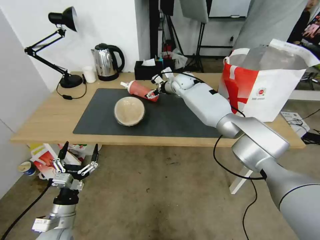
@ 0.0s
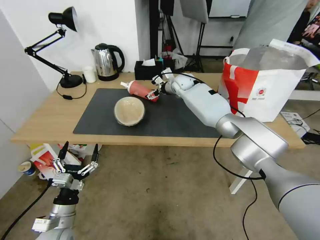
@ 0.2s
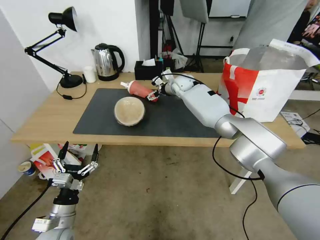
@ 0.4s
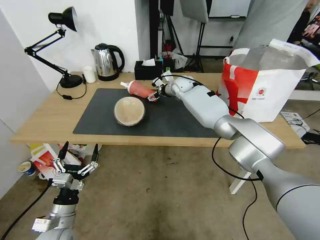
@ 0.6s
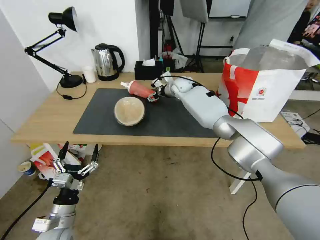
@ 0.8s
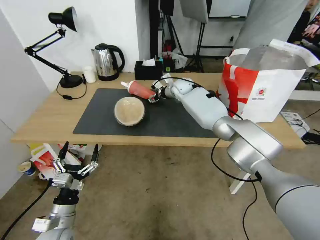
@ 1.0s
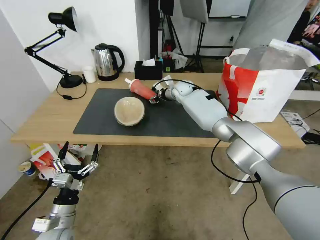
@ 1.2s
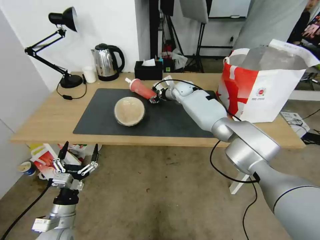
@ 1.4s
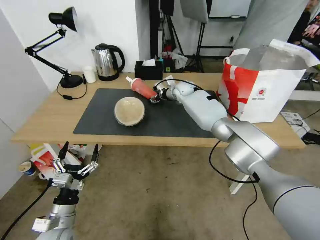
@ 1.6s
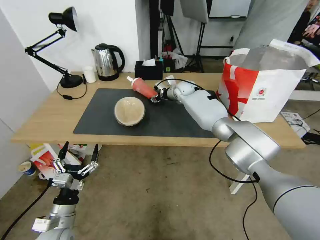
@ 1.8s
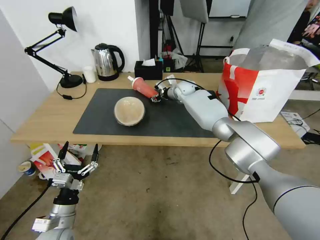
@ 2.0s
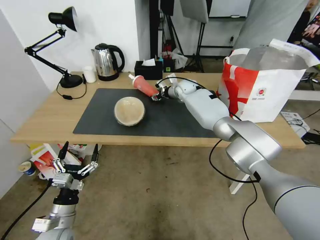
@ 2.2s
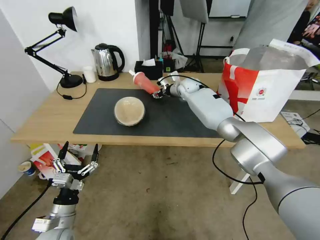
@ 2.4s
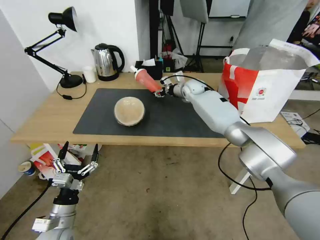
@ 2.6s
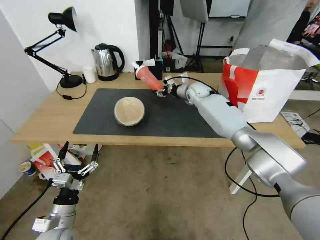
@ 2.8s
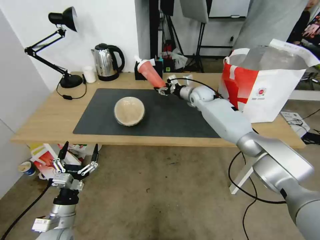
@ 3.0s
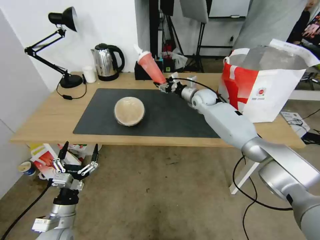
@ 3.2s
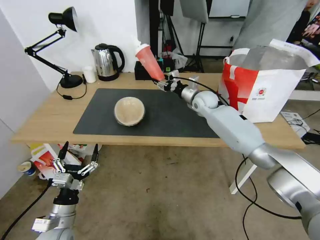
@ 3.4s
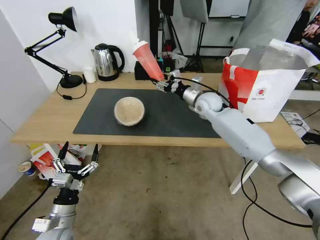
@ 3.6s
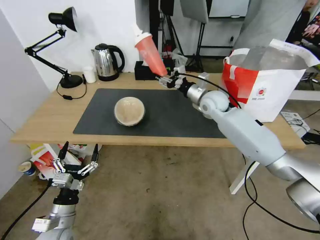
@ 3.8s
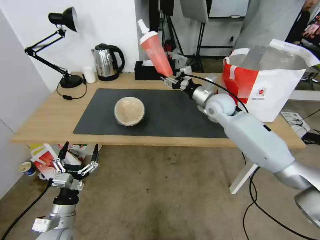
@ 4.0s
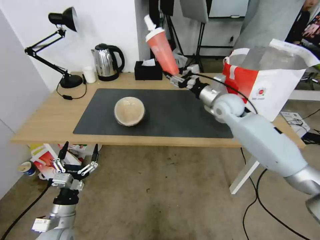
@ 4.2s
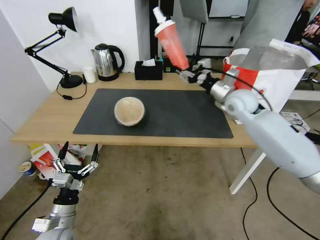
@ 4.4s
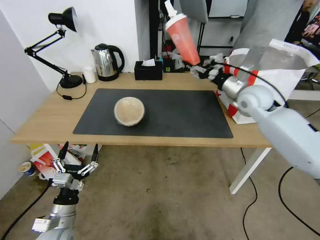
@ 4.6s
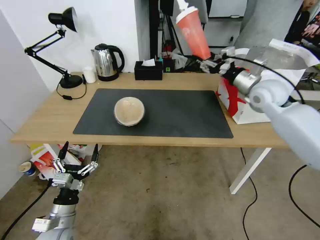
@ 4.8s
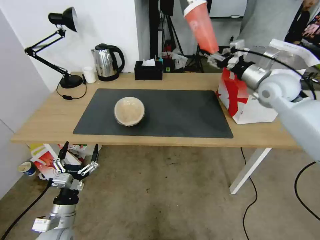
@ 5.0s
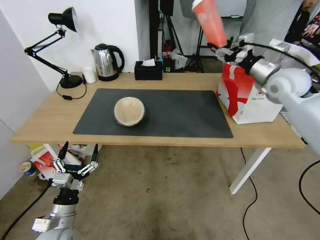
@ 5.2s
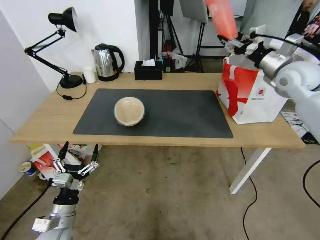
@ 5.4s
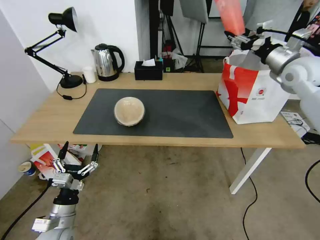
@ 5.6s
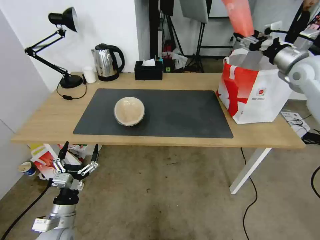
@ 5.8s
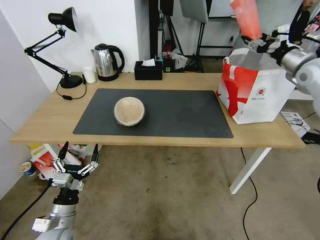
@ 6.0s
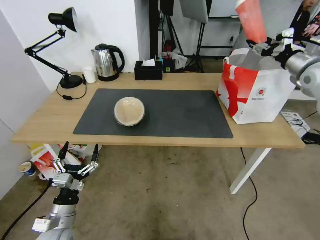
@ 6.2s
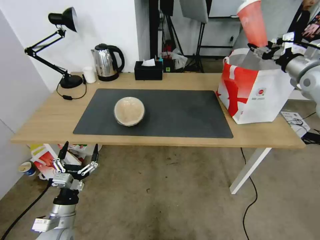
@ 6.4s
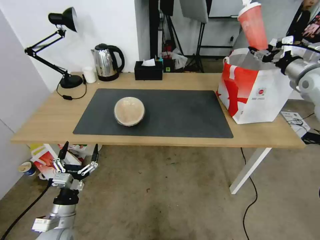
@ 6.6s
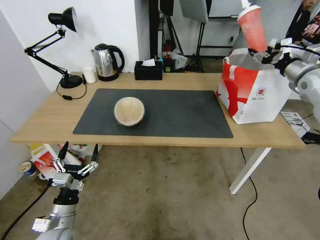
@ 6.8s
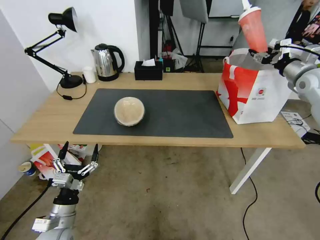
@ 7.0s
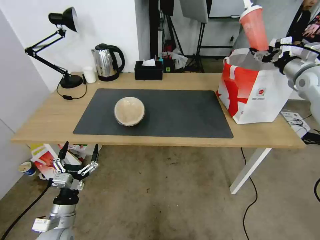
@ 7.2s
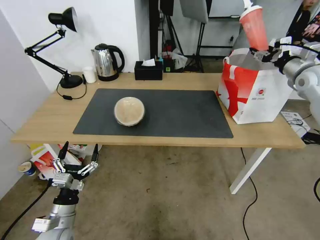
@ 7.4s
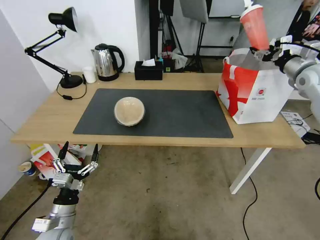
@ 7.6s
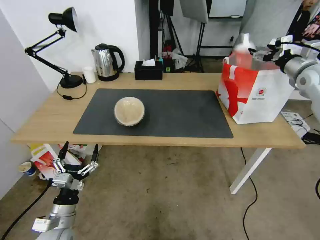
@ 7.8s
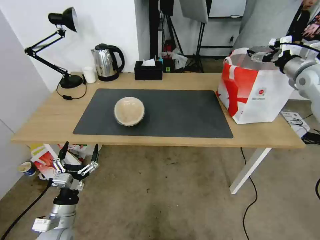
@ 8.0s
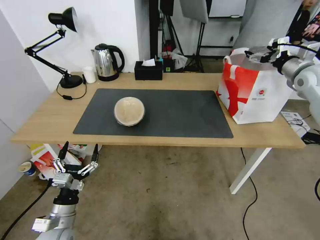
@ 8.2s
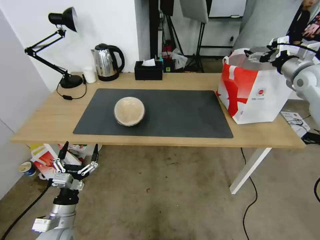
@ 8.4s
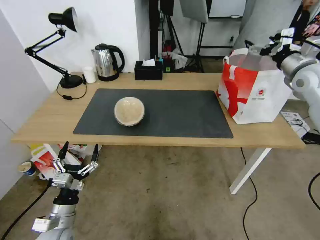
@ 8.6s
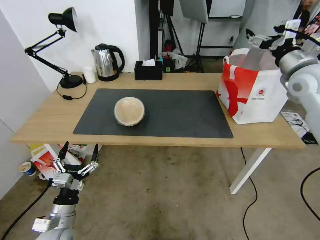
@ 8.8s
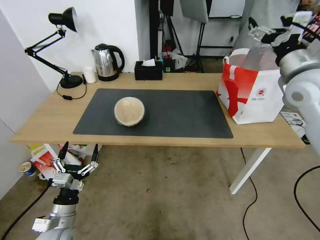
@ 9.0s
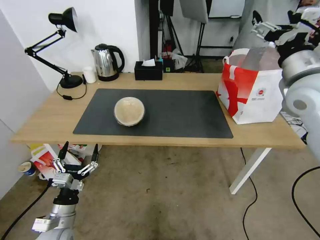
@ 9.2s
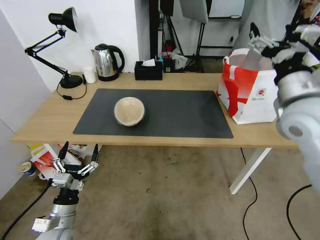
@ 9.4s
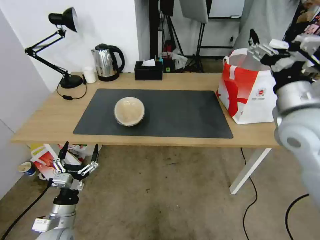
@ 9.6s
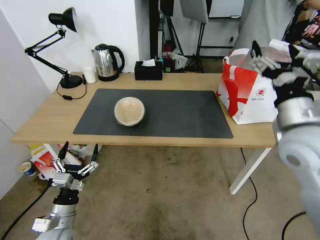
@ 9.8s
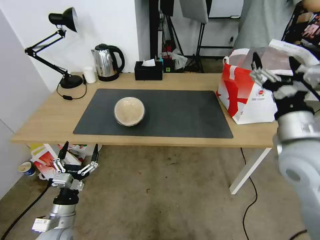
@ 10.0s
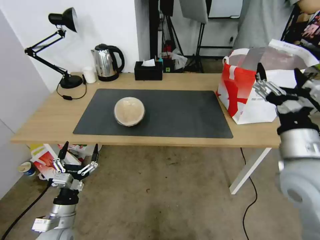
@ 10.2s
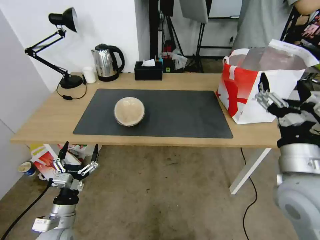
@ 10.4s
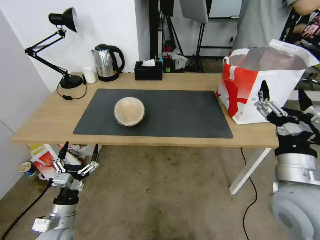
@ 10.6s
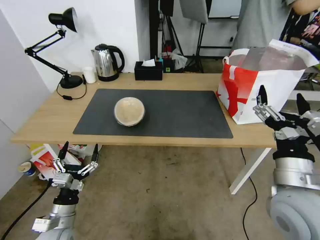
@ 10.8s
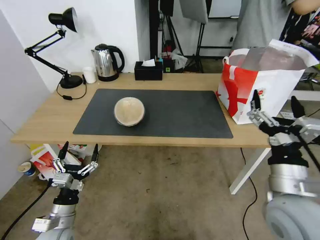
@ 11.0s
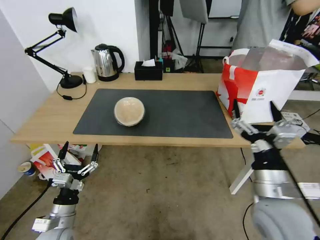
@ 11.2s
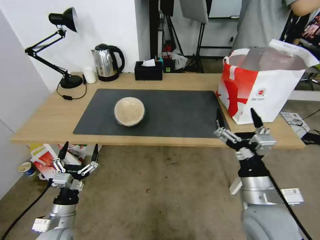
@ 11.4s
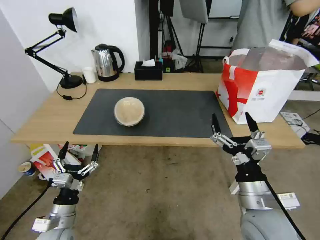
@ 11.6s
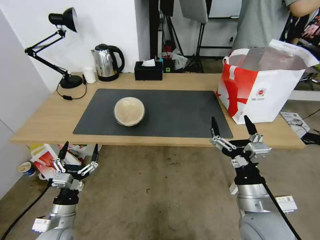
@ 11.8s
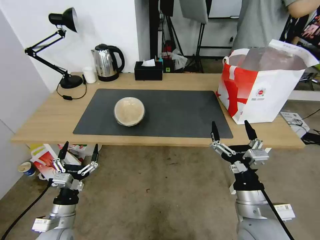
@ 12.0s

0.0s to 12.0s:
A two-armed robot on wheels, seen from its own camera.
Task of the whole recording: Pick up the trash from the table and place it into the takeout bag.
0.0s to 1.6s: The right gripper closes.
1.6s to 3.0s: The right gripper goes about 5 cm to the right.
3.0s to 4.4s: The right gripper goes some 20 cm backward, to the right and upward.
4.4s to 6.0s: The right gripper travels to the right and upward by approximately 20 cm.
6.0s to 7.6s: The grippers make only small movements.
7.6s to 9.0s: The right gripper heads to the left and backward, covering approximately 20 cm, and opens its fingers.
9.0s to 10.4s: The right gripper travels backward and downward by about 25 cm.
10.4s to 12.0s: The right gripper moves downward and to the left, about 15 cm.

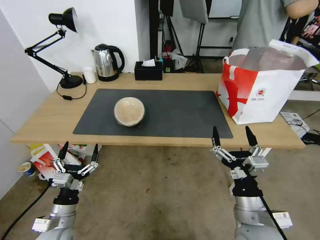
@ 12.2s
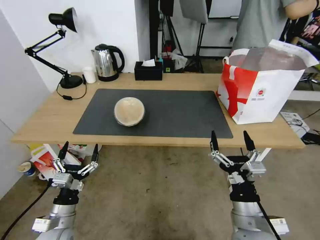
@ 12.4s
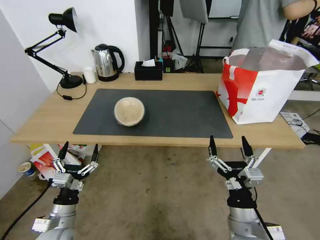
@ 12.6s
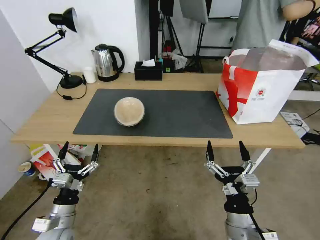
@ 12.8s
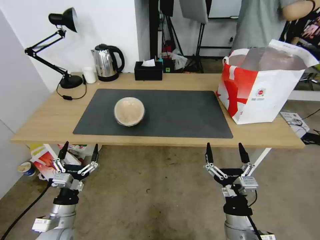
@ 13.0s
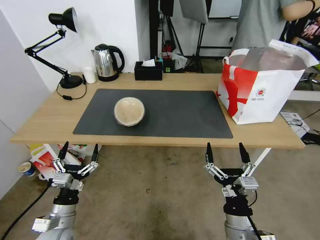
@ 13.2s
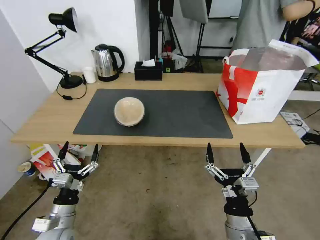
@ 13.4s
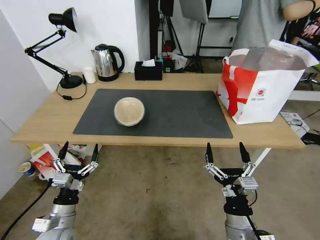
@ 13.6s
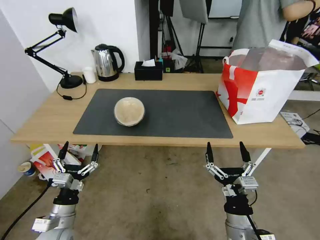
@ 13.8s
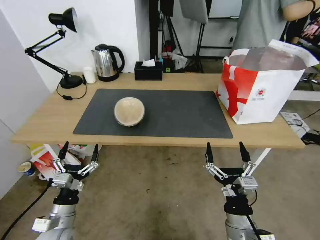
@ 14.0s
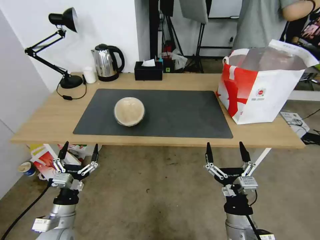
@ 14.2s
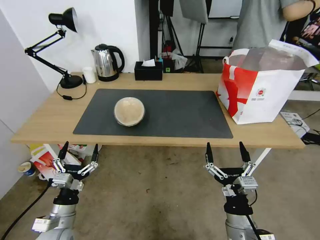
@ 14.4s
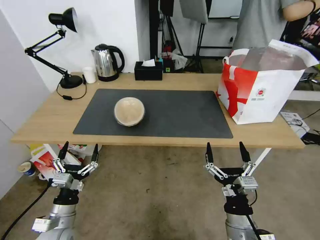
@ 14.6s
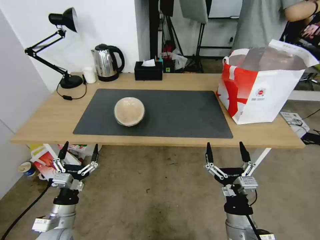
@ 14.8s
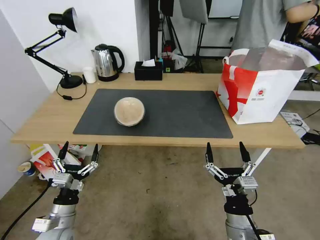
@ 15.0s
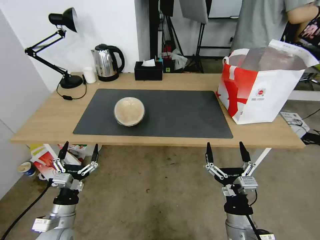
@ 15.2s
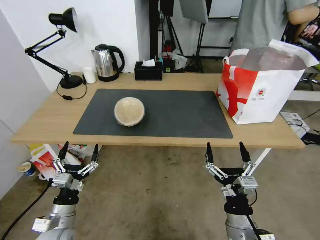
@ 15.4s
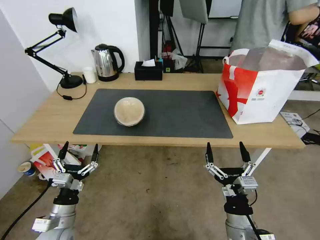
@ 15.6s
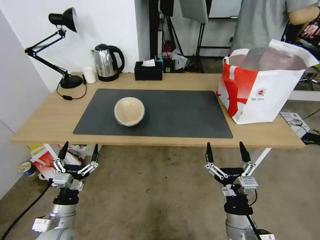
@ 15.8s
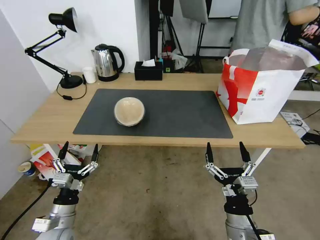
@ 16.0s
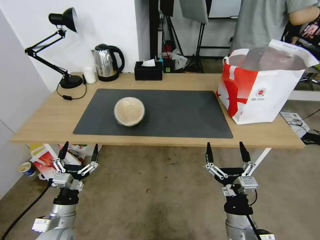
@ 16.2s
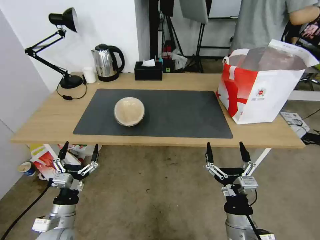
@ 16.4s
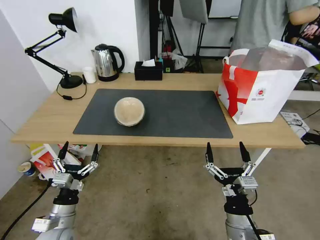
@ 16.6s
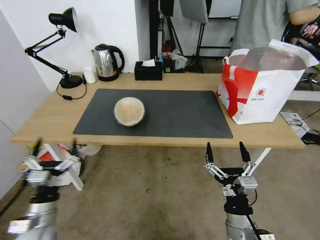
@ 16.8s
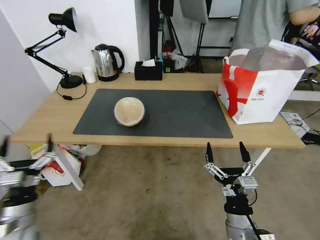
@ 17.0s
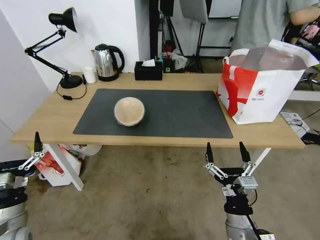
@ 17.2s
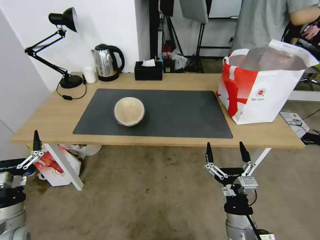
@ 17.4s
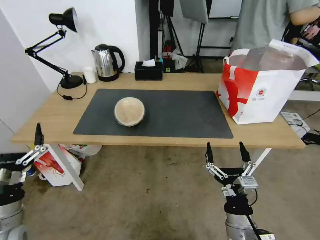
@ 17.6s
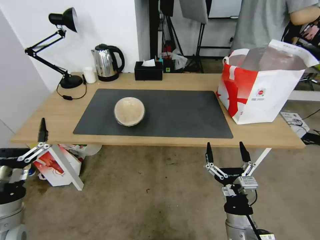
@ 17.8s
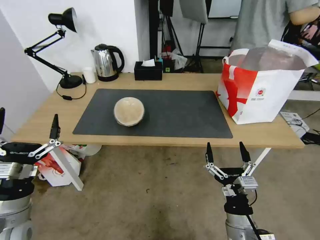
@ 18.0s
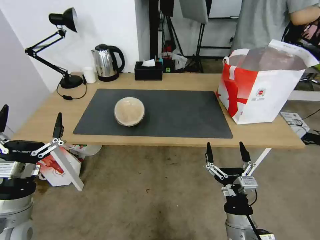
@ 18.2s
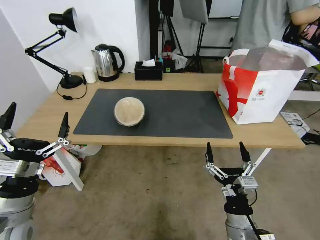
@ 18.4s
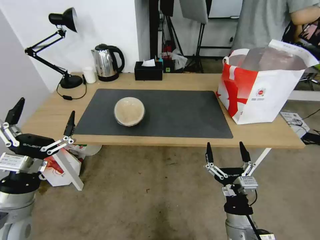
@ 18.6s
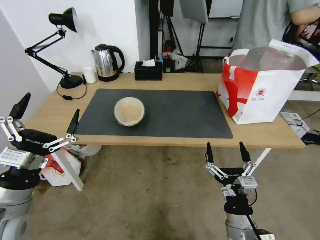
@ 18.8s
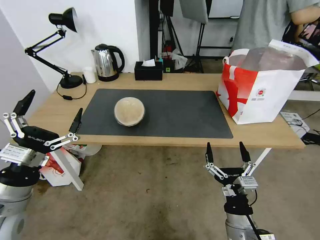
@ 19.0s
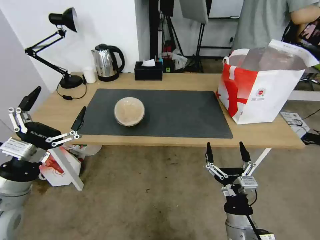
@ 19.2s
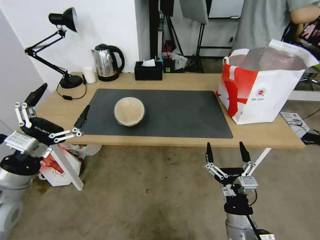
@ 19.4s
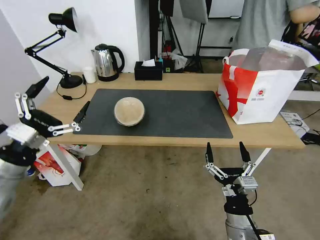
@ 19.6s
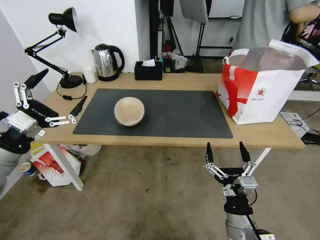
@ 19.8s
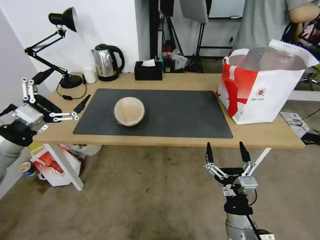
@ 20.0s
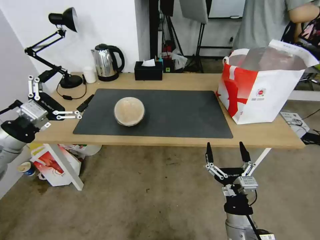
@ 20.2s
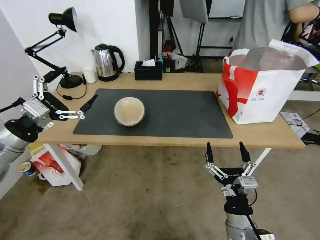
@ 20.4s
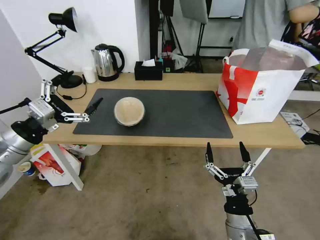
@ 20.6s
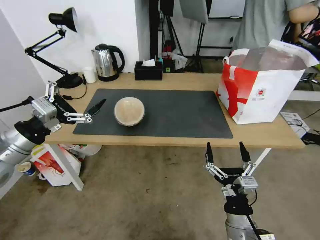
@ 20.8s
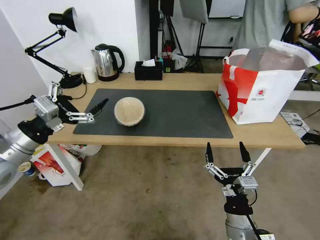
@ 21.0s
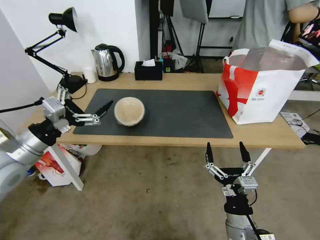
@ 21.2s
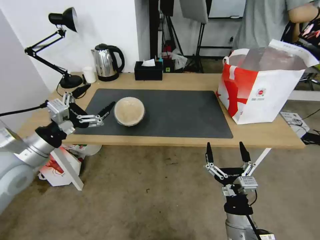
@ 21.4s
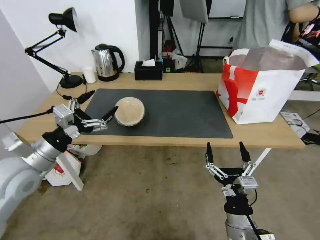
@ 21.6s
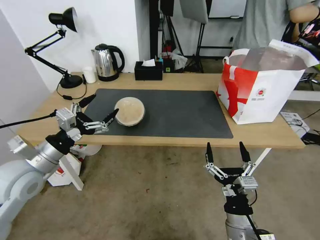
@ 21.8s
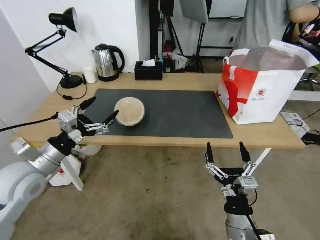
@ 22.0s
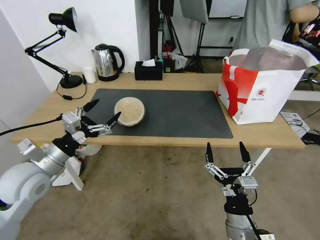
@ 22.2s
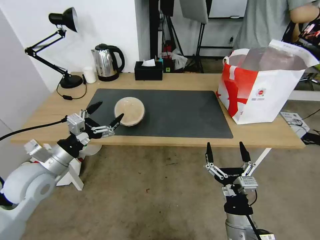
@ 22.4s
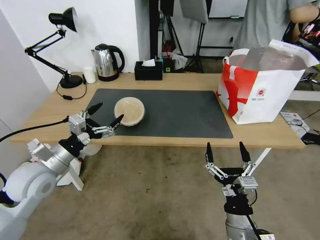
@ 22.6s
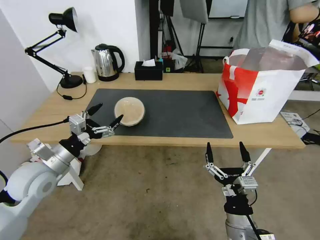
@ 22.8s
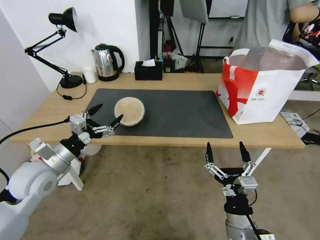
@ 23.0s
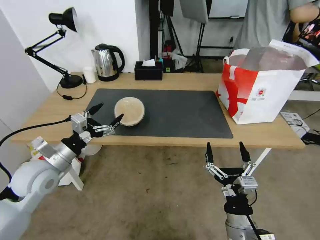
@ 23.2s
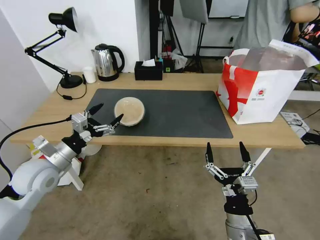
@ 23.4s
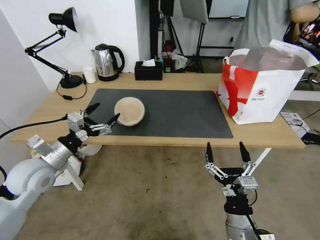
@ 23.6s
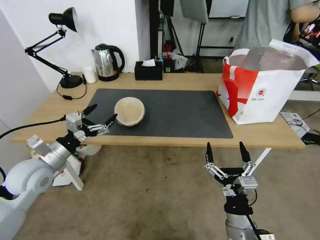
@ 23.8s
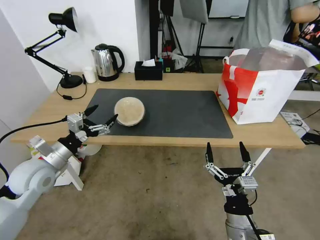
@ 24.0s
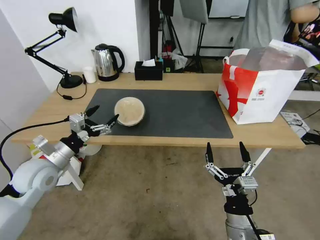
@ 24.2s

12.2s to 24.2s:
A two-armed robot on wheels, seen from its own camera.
Task of the whole recording: Pick up the trash from the table and place it into the takeout bag.
12.2s to 13.8s: The right gripper travels downward by roughly 5 cm.
13.8s to 16.6s: Both grippers stay about where they are.
16.6s to 18.2s: The left gripper heads upward, covering approximately 15 cm.
18.2s to 19.8s: The left gripper moves upward, forward and to the left, roughly 15 cm.
21.2s to 22.6s: The left gripper heads downward, covering some 10 cm.
22.6s to 24.2s: There are only small adjustments of the grippers.
